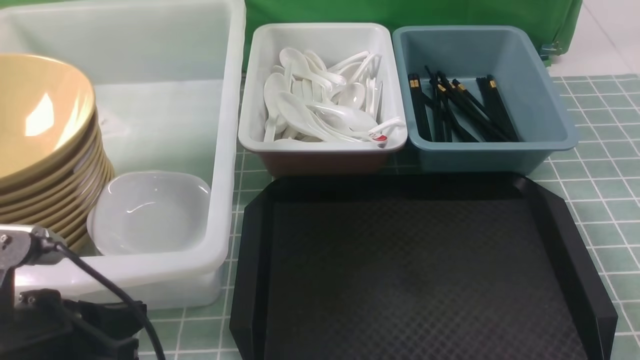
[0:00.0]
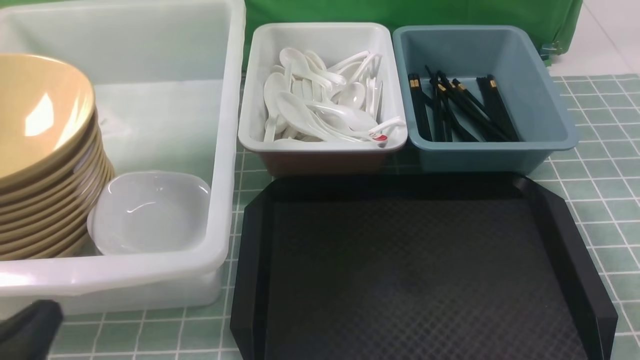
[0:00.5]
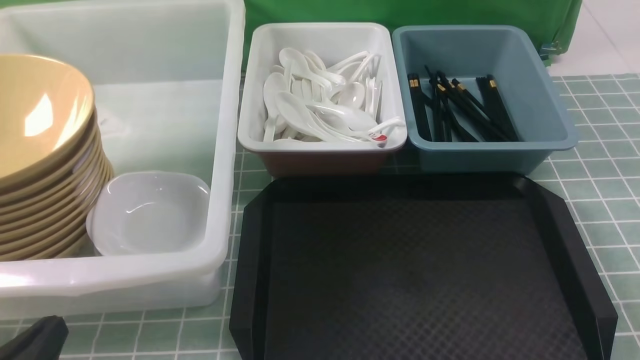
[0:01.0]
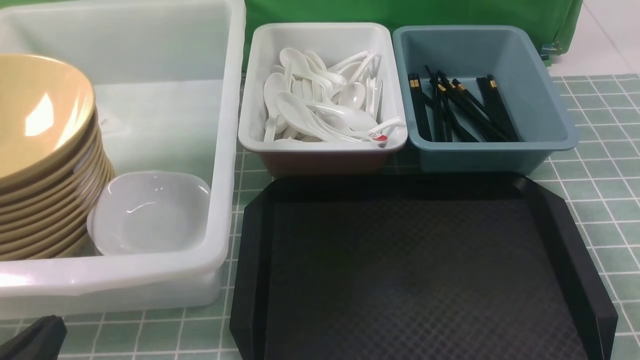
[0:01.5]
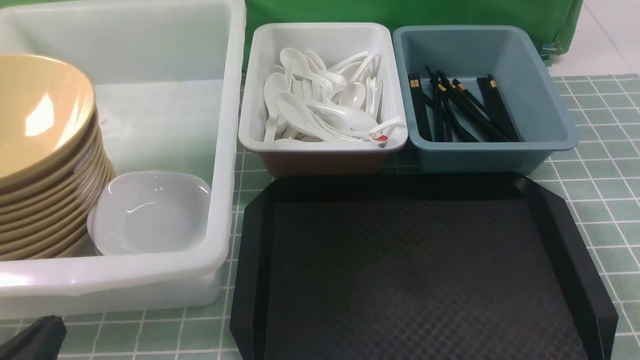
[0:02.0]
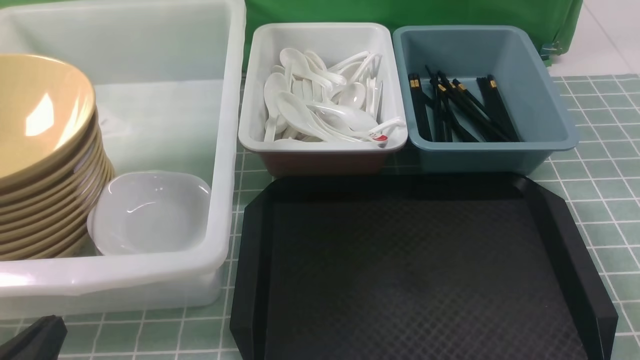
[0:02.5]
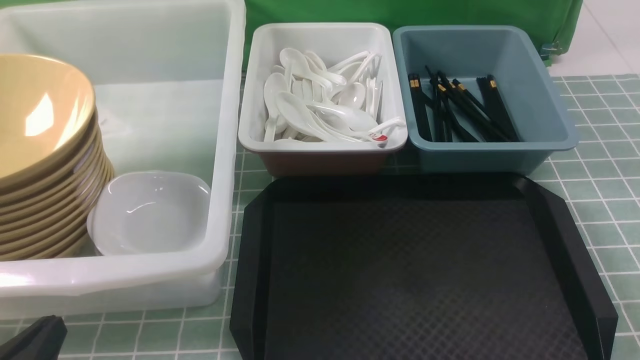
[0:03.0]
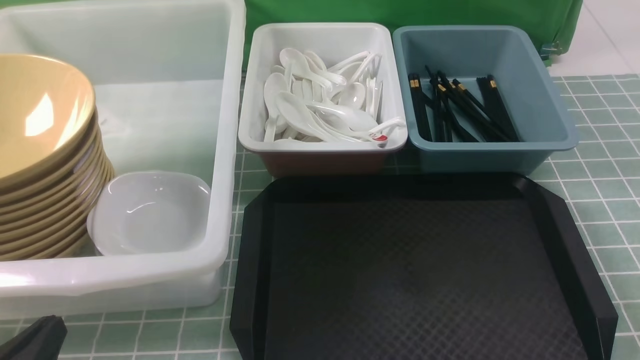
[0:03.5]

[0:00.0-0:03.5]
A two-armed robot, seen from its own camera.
Task of the whole recording: on blue table put chopsticks spoon bowls plates into blue grey white boxes.
0:00.0 to 0:02.0: The left gripper moves downward, some 5 cm.
0:02.0 to 0:03.5: Both grippers stay about where they are.
